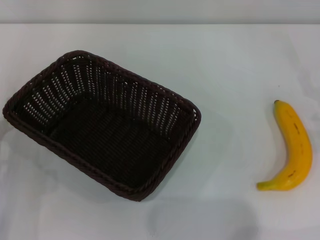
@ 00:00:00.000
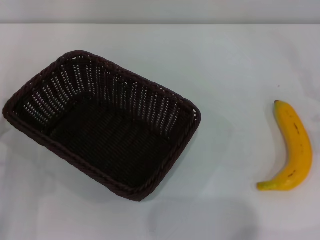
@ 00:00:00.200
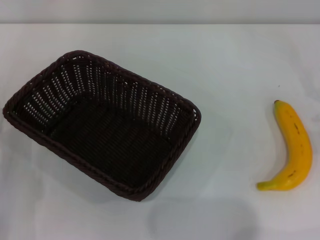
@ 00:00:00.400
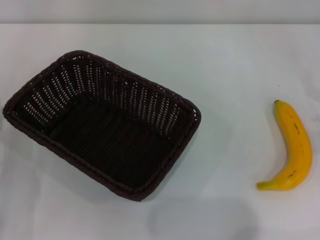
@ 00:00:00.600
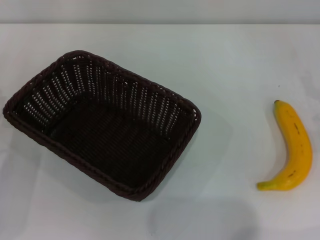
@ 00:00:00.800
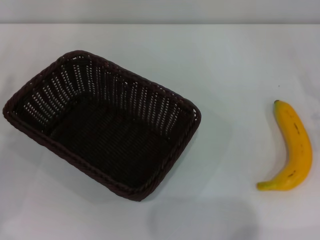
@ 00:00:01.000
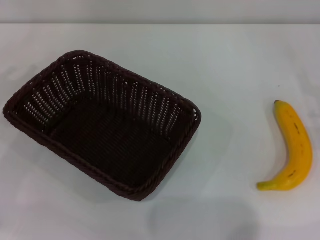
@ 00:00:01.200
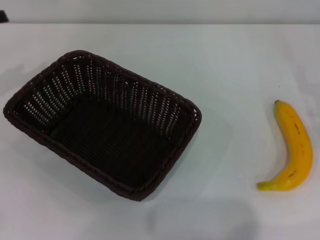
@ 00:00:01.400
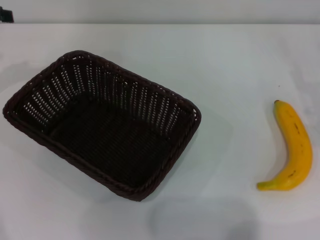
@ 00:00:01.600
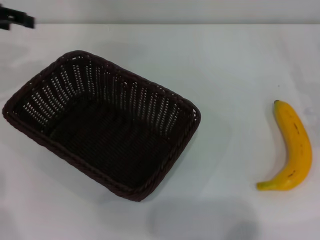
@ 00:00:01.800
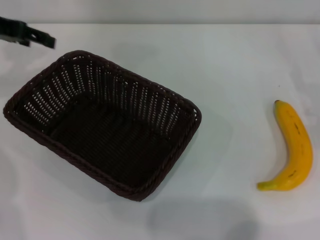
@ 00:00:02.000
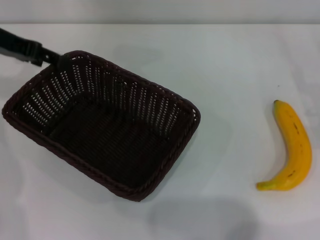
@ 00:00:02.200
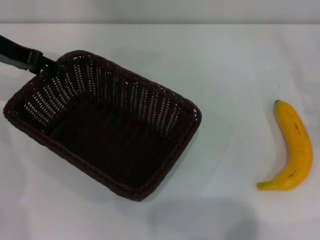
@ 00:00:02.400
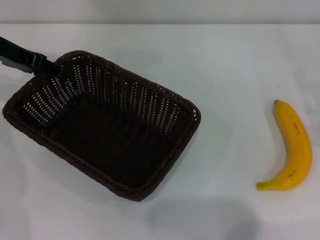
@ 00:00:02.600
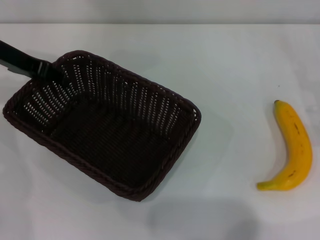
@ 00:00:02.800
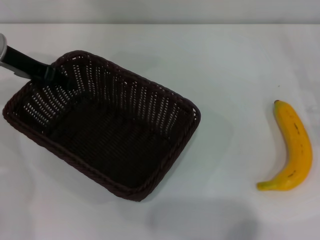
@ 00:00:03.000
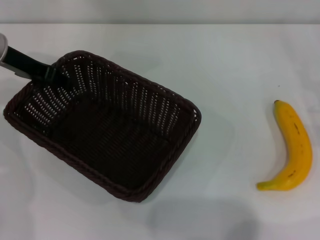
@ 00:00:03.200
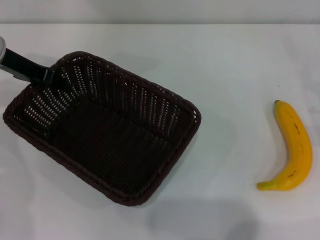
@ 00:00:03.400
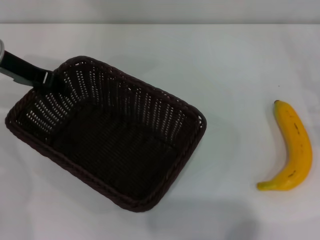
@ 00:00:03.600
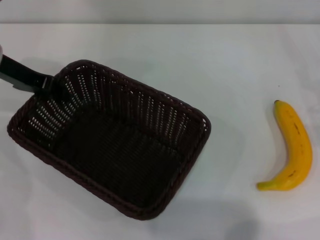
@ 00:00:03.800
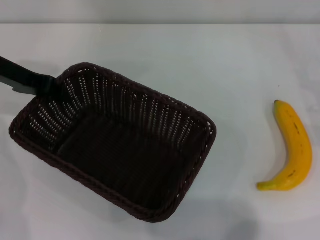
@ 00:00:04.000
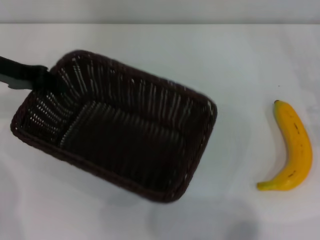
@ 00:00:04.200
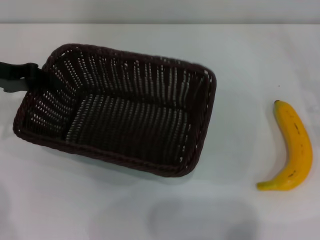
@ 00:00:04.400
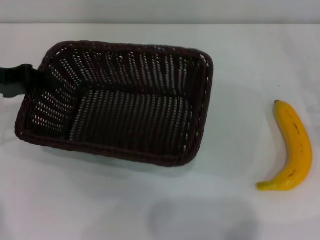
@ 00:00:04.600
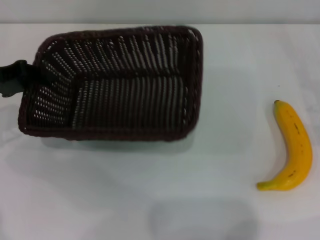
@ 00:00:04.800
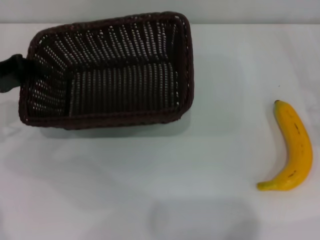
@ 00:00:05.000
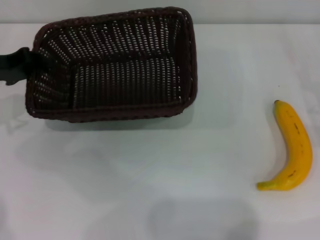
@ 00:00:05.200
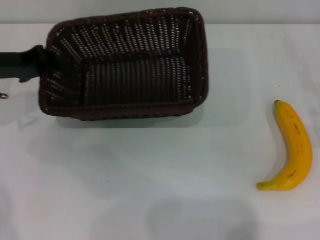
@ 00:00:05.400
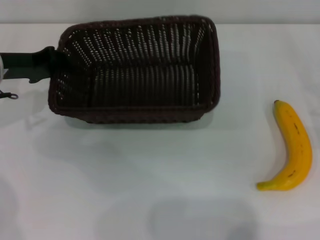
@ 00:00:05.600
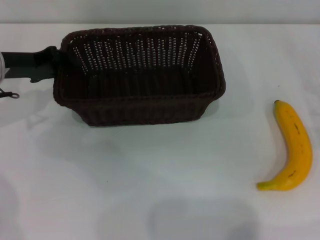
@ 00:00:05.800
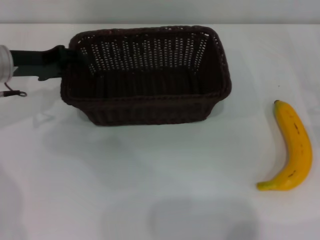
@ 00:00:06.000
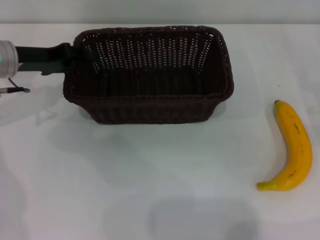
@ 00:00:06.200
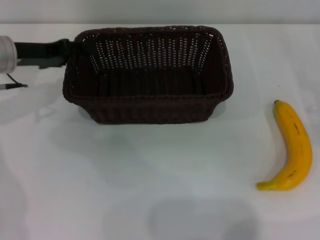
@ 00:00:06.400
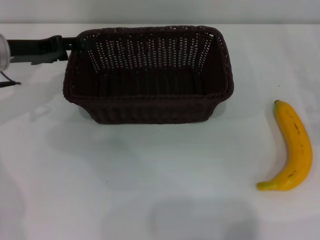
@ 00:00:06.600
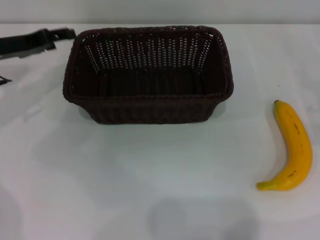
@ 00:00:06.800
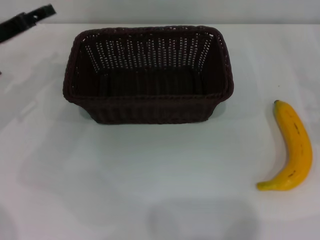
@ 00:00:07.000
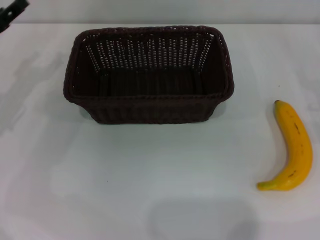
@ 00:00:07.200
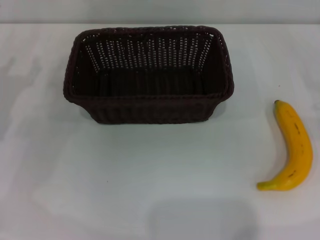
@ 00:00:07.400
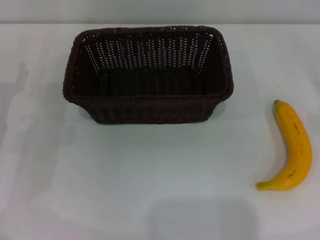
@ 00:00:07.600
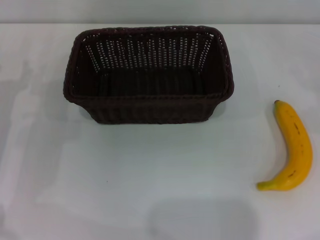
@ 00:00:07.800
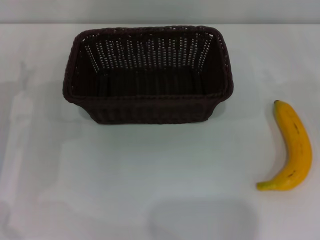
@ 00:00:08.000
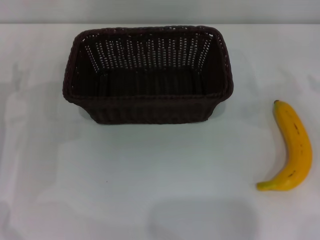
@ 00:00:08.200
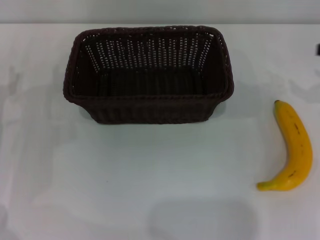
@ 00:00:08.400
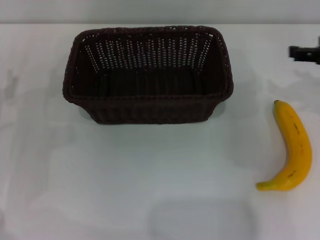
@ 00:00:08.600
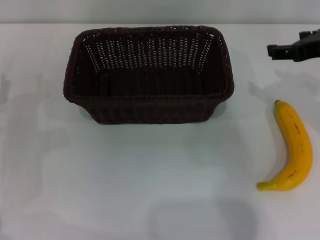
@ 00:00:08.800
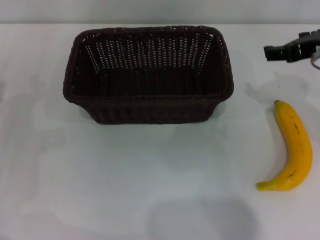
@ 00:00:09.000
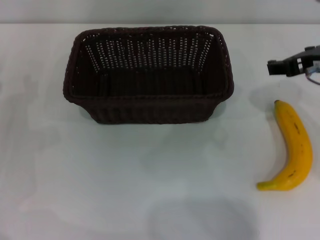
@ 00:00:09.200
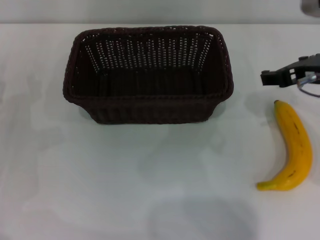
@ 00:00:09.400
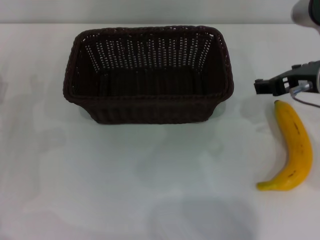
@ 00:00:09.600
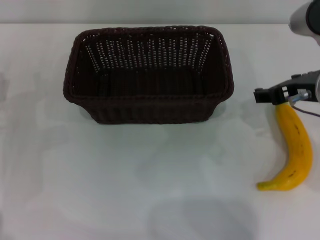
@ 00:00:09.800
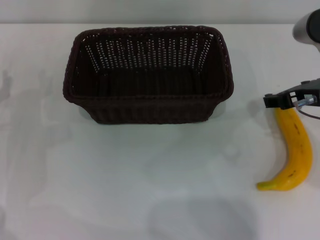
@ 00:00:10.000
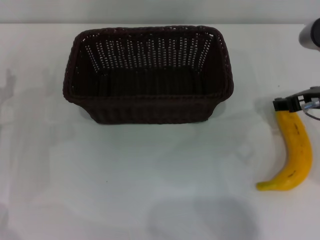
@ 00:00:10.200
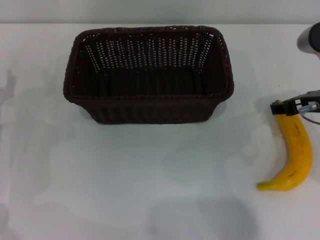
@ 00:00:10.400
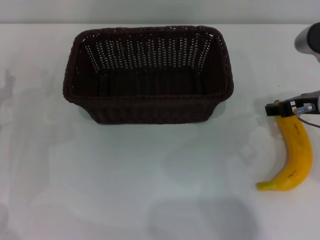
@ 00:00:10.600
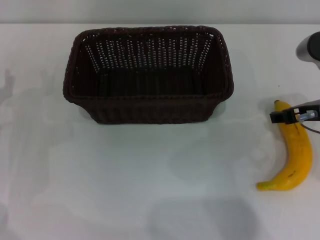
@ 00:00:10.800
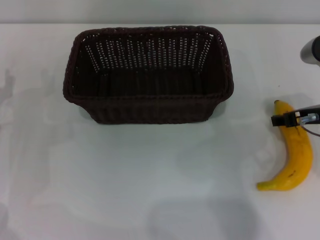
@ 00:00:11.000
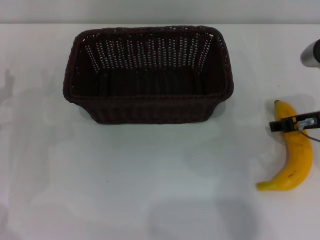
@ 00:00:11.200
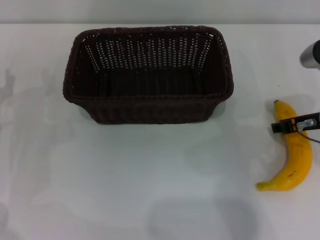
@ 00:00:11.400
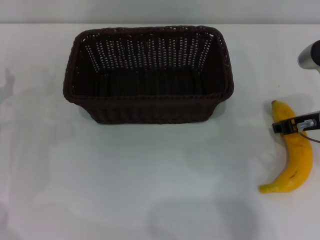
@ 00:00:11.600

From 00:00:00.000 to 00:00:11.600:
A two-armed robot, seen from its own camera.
Step, from 00:00:00.000 to 00:00:03.800: Pick up the dark basket with the left gripper.
Step, from 00:00:04.200 to 00:00:06.600: Place the dark basket in the center of view with the left gripper.
From 00:00:00.000 to 00:00:01.400: The left gripper heads upward, forward and to the left, covering approximately 25 cm.
From 00:00:01.400 to 00:00:02.800: The left gripper shifts some 10 cm to the right.
From 00:00:02.800 to 00:00:04.400: The left gripper shifts by roughly 5 cm, and closes up.
From 00:00:04.400 to 00:00:05.800: The left gripper moves roughly 5 cm.
From 00:00:05.800 to 00:00:07.200: The left gripper ends up approximately 5 cm from where it was, and opens its fingers.
From 00:00:07.200 to 00:00:08.800: The left gripper heads downward, covering approximately 5 cm; the right gripper travels upward and to the left by some 20 cm.
From 00:00:08.800 to 00:00:10.200: The right gripper travels downward by about 5 cm.
From 00:00:10.200 to 00:00:11.600: The right gripper closes its fingers.

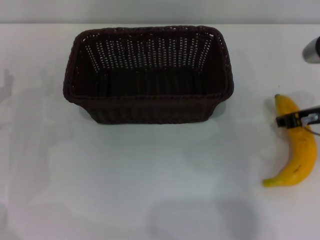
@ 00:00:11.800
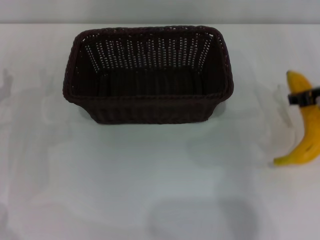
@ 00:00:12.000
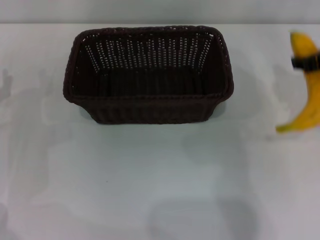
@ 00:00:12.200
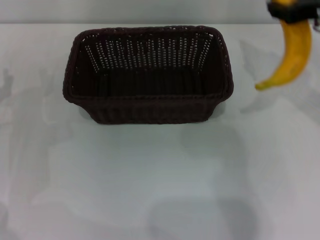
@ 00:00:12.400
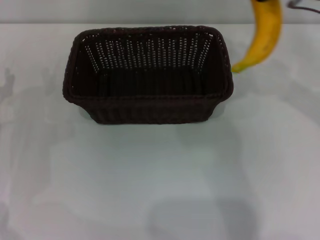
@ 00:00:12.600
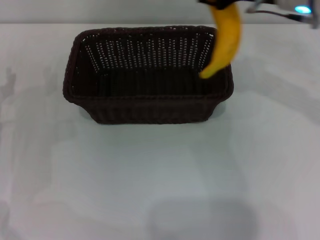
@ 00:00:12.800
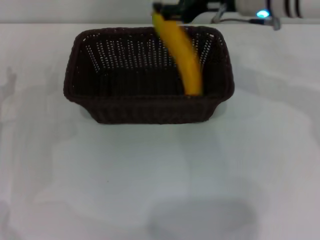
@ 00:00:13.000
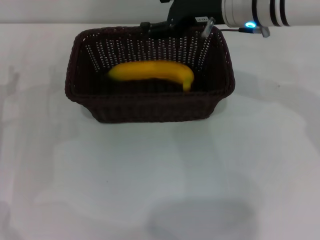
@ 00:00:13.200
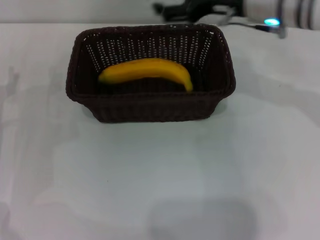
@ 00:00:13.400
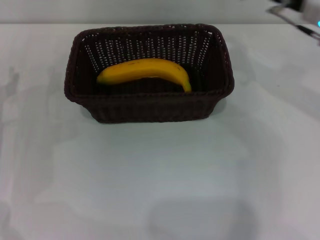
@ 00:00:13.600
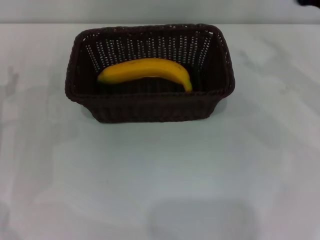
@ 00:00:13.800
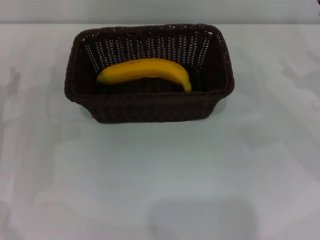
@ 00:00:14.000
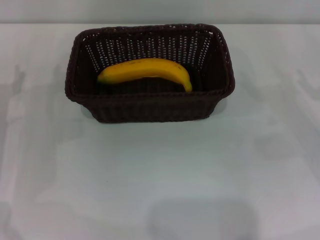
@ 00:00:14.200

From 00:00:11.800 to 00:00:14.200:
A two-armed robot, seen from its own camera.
Step, from 00:00:12.200 to 00:00:13.000: Place the banana into the dark basket with the right gripper.
From 00:00:11.800 to 00:00:13.000: The right gripper shifts approximately 15 cm to the left, forward and upward.
From 00:00:13.000 to 00:00:14.200: The right gripper is displaced to the right, downward and backward by about 30 cm, and opens its fingers.
